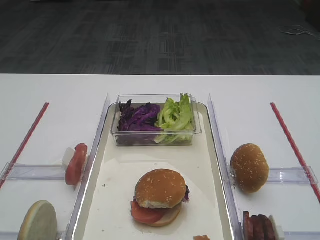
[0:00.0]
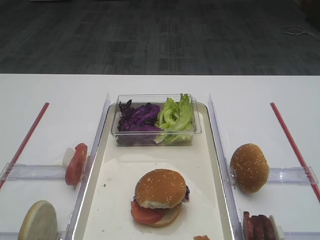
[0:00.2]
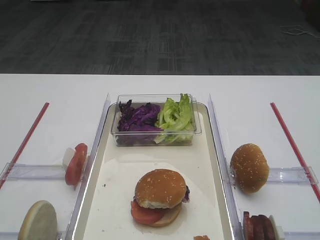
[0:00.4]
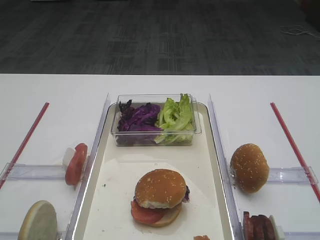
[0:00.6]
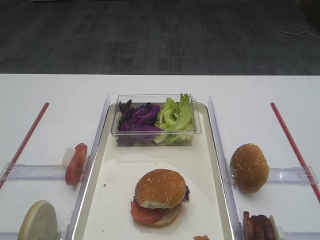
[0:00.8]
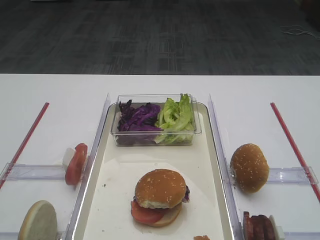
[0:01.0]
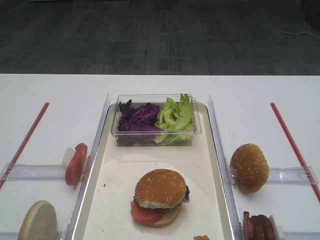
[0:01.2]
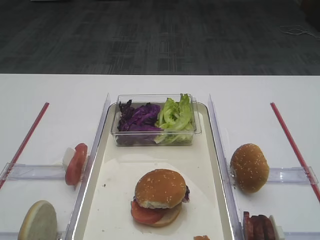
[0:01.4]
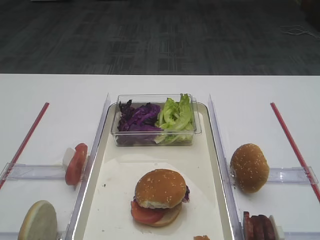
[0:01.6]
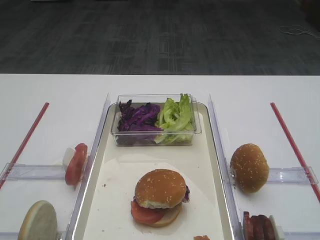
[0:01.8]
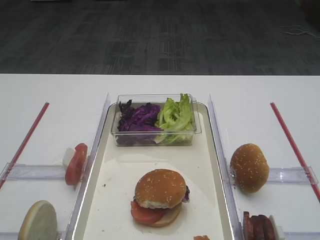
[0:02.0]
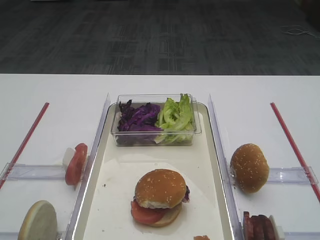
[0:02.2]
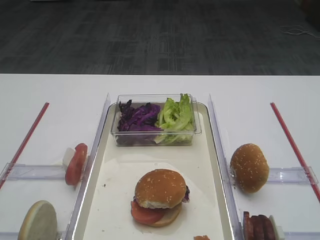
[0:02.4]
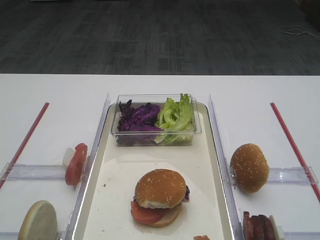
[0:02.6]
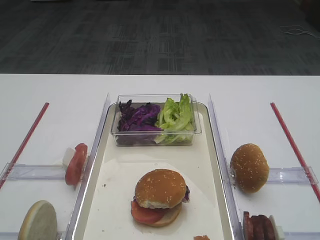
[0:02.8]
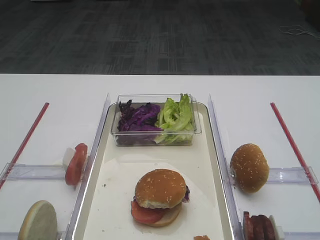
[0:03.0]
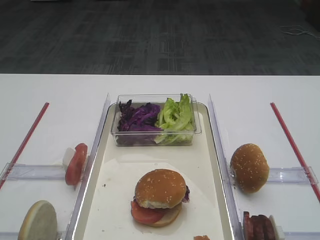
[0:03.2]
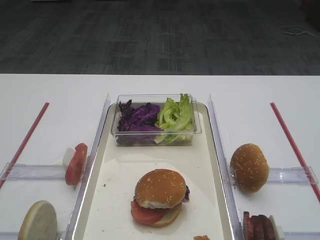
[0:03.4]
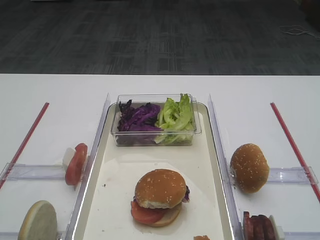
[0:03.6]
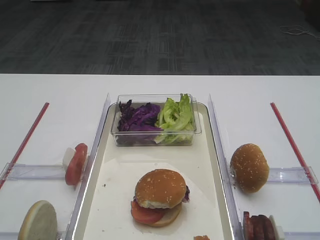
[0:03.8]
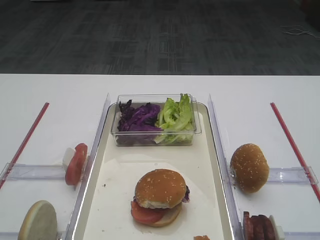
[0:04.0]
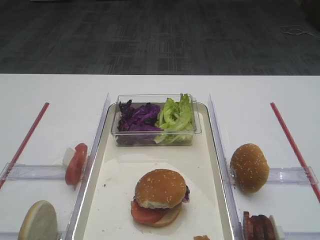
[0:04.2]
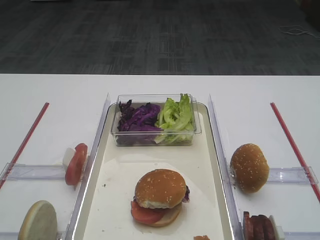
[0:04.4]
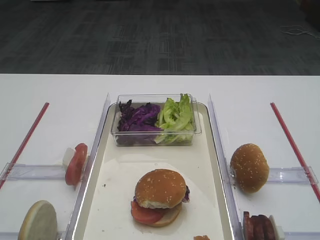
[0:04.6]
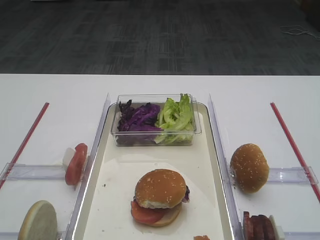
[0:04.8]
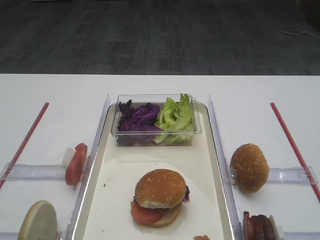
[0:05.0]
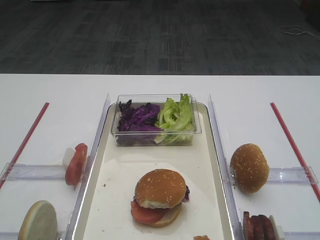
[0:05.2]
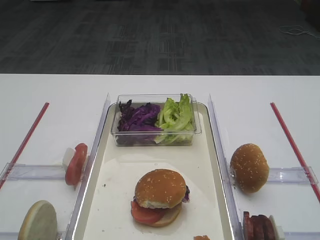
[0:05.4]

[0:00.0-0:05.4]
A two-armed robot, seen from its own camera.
0:00.0 to 0:05.4: Both grippers stay put.
